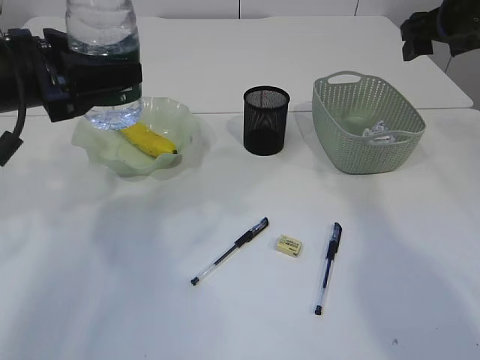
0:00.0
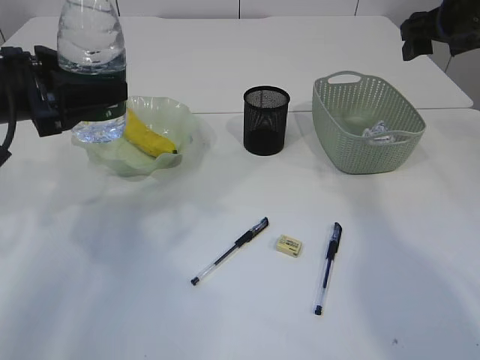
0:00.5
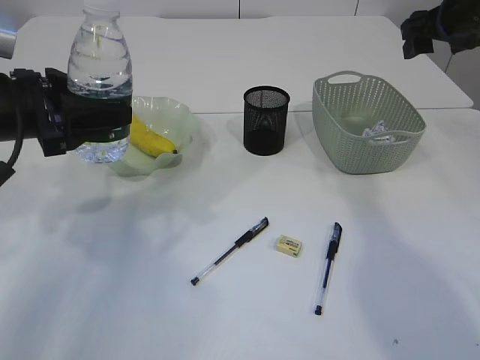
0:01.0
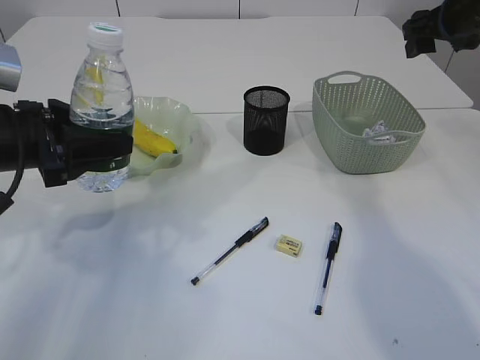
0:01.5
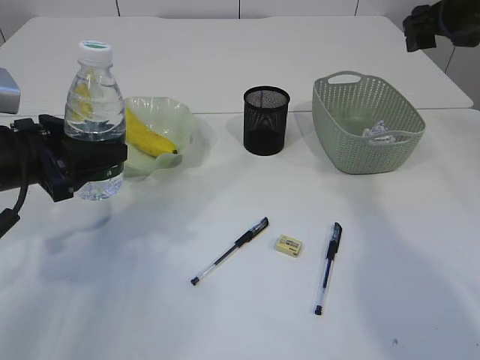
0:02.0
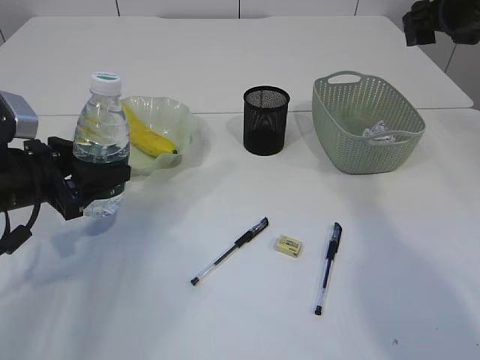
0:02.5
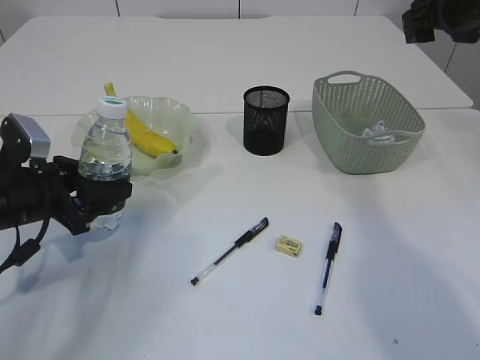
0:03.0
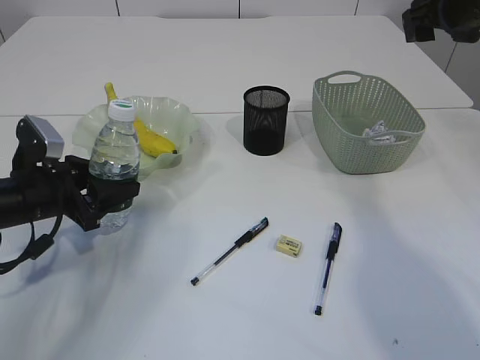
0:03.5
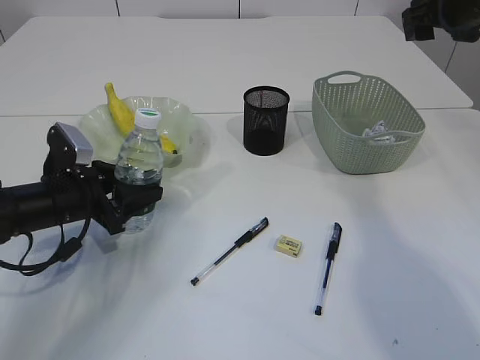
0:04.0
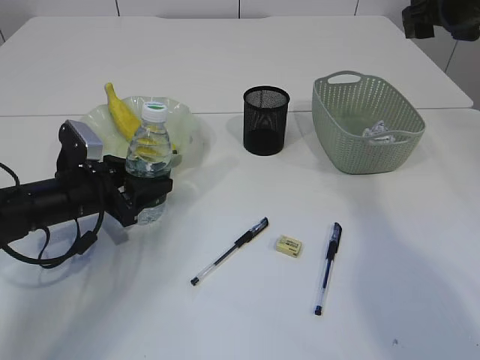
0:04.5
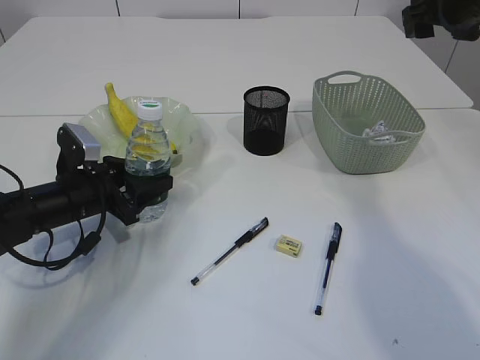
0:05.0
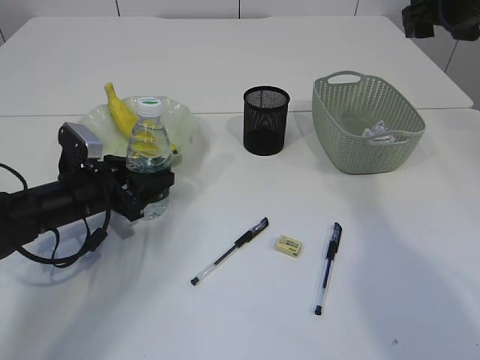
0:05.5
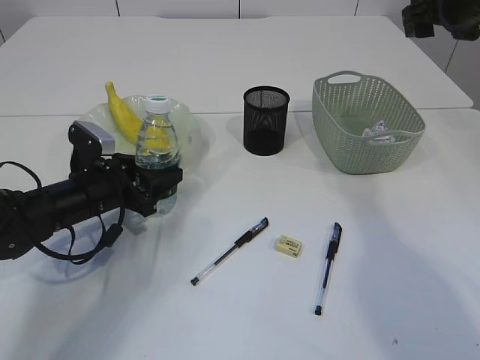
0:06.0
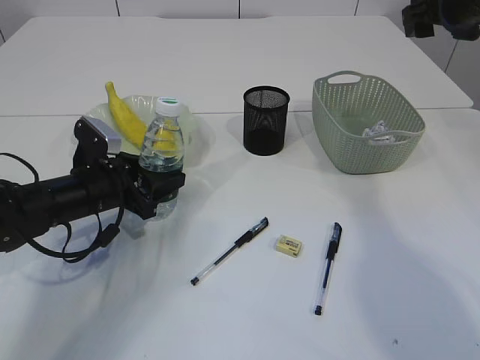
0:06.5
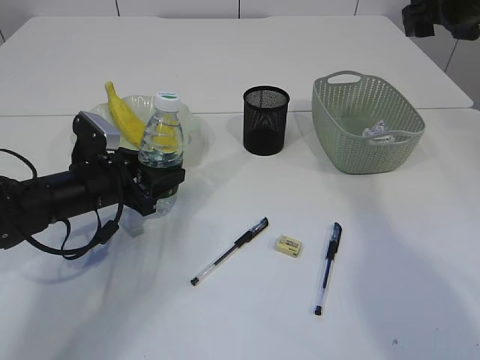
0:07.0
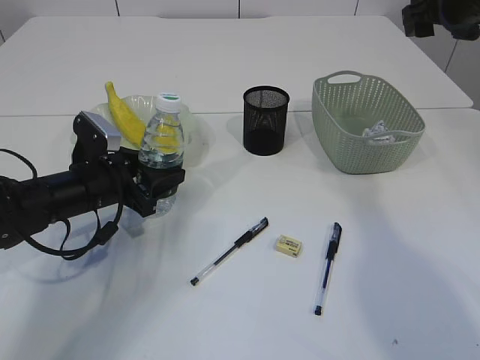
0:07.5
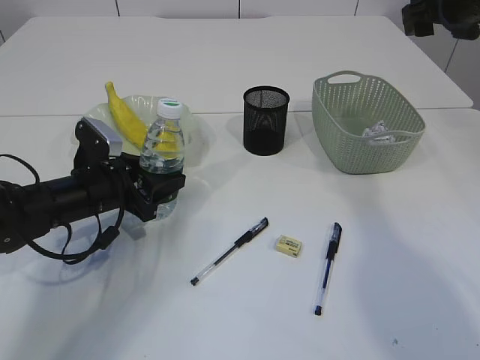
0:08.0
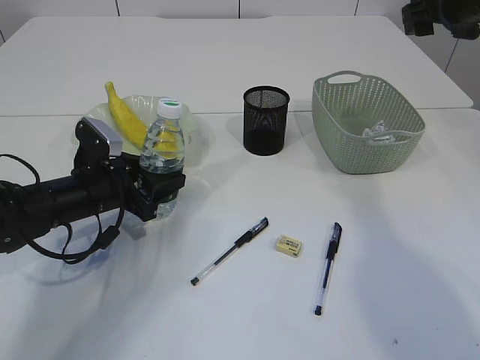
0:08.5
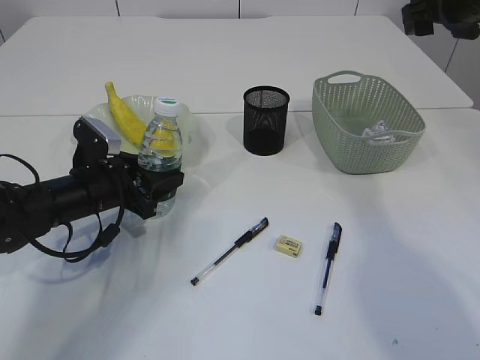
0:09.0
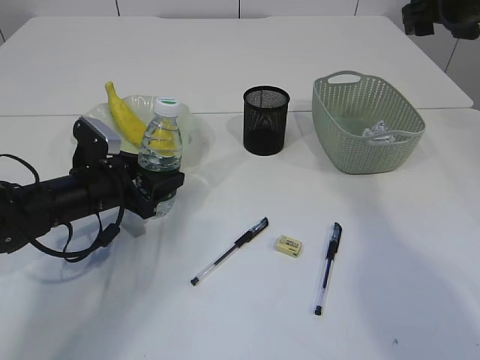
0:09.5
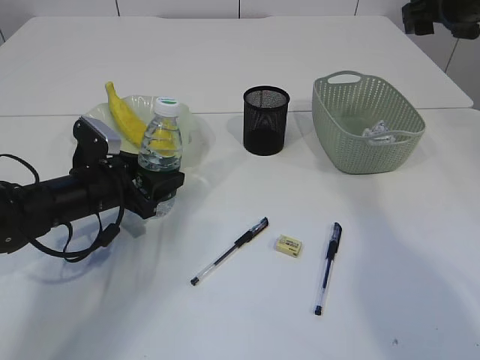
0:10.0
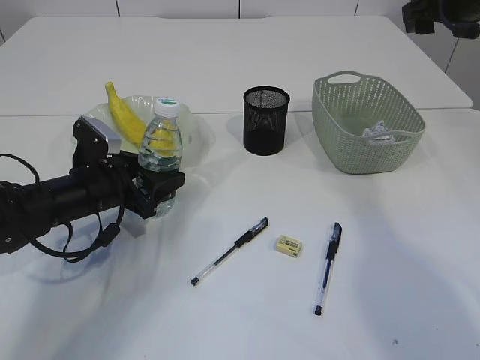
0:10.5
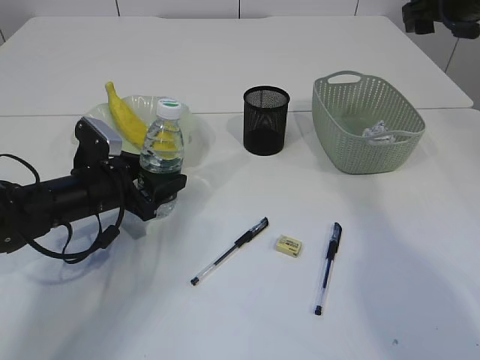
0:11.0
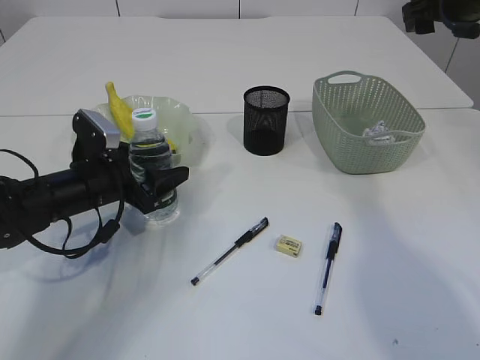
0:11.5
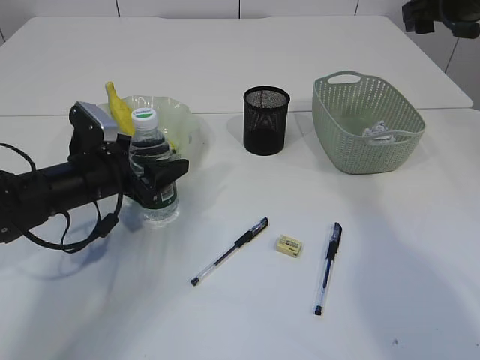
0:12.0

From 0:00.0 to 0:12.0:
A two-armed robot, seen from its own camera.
From 0:00.0 to 0:02.0: The left gripper heads downward, covering approximately 10 cm.
From 0:02.0 to 0:04.0: The left gripper travels downward by approximately 10 cm.
From 0:04.0 to 0:08.0: There are only small adjustments of the grippers.
From 0:08.0 to 0:10.0: Both grippers stay about where they are.
From 0:10.0 to 0:12.0: The grippers stay close to where they were, moving slightly.

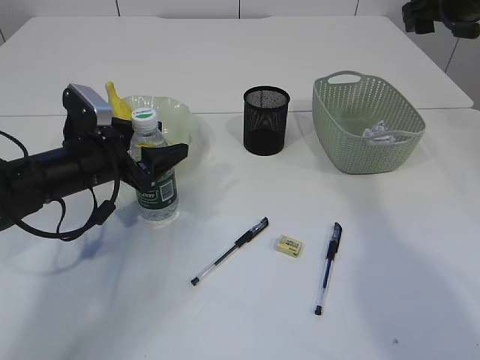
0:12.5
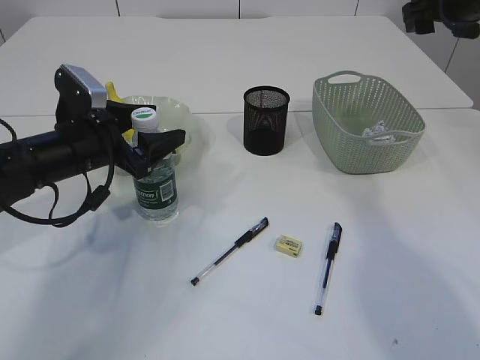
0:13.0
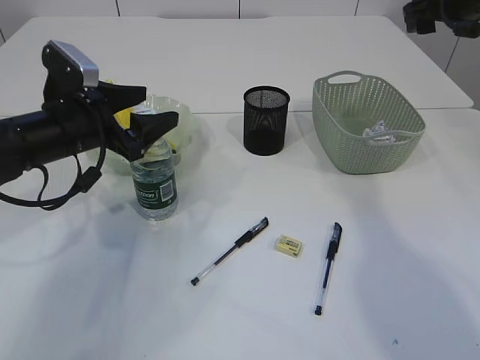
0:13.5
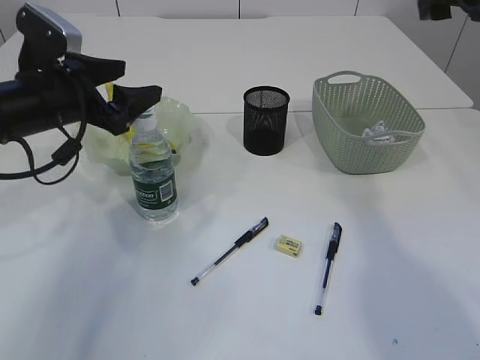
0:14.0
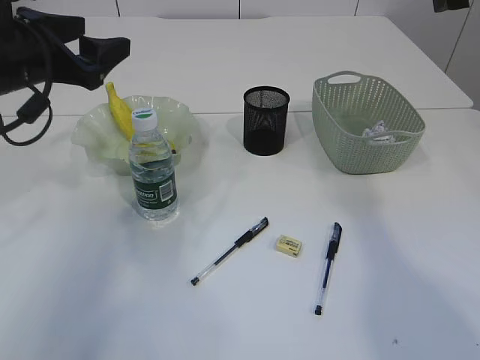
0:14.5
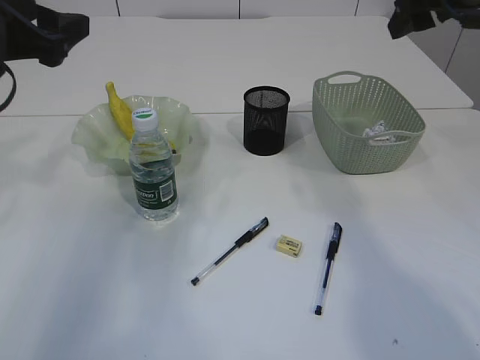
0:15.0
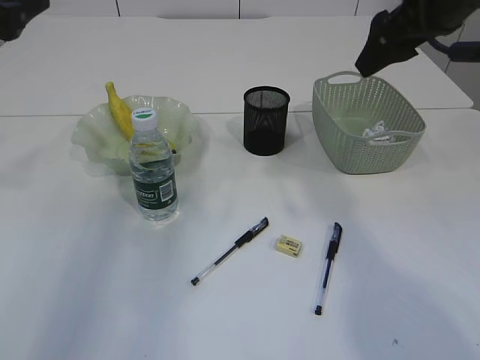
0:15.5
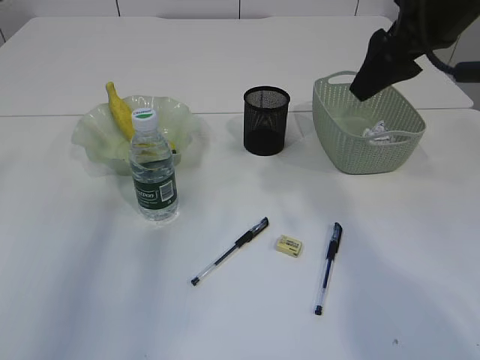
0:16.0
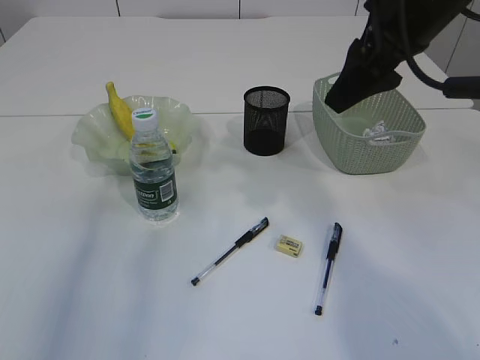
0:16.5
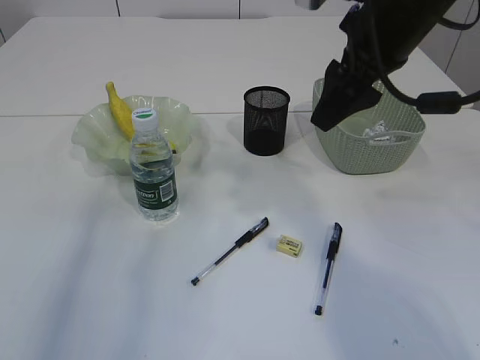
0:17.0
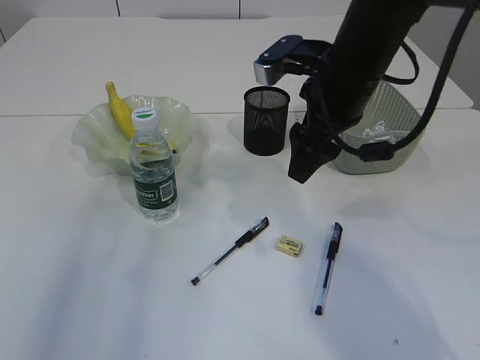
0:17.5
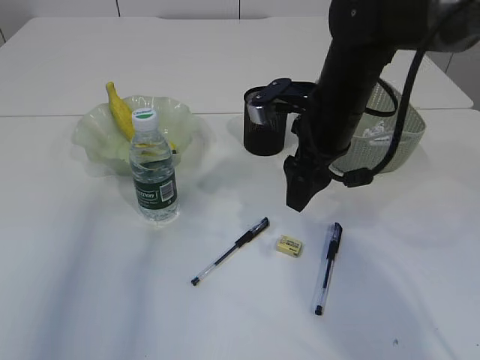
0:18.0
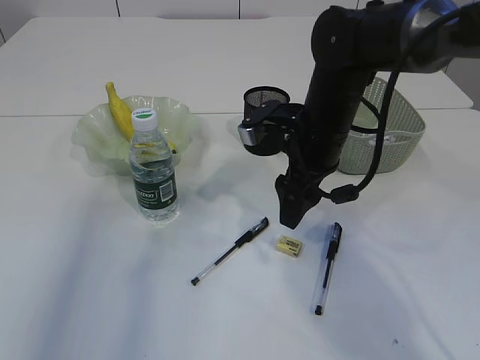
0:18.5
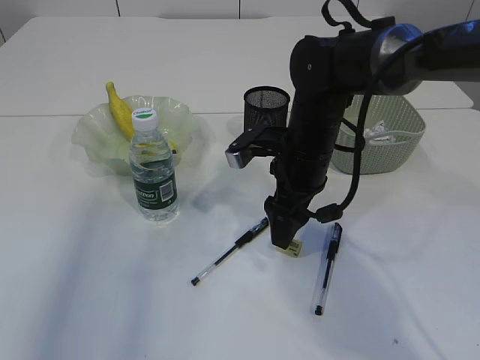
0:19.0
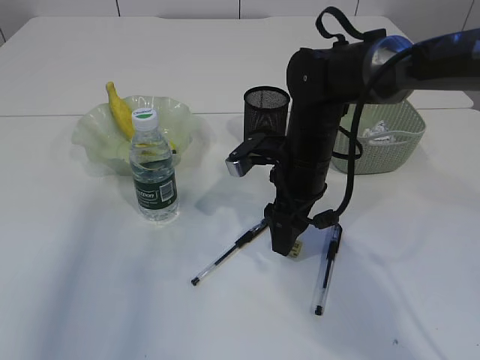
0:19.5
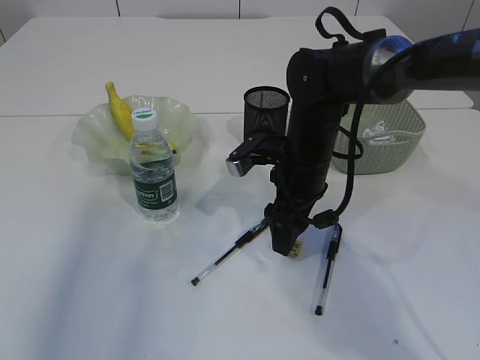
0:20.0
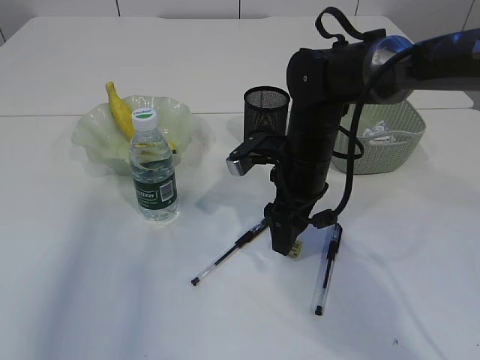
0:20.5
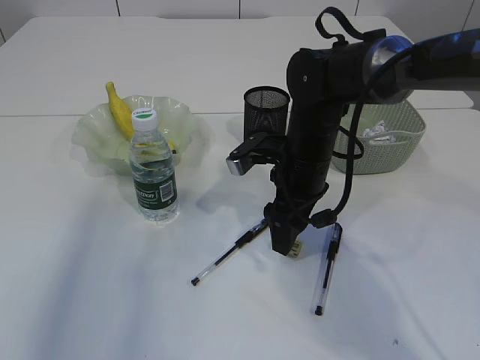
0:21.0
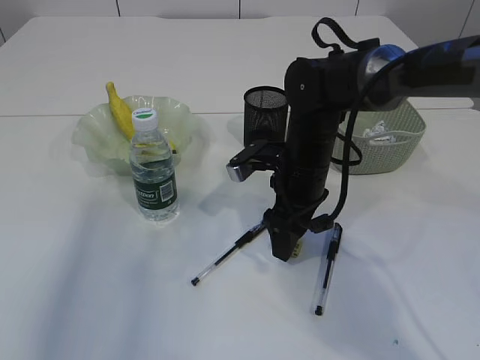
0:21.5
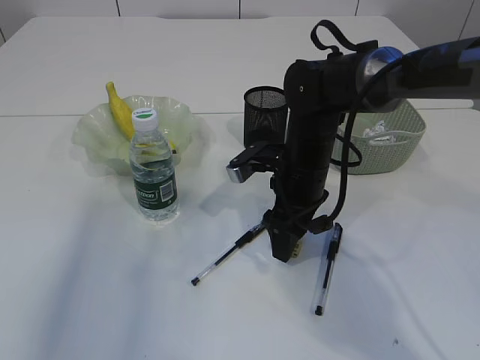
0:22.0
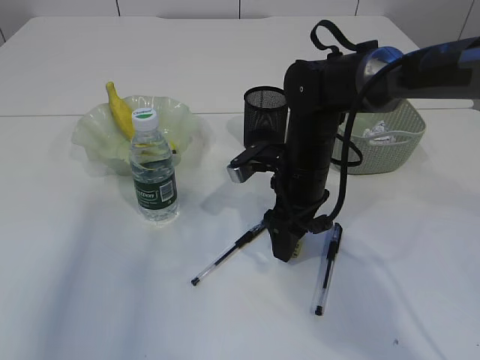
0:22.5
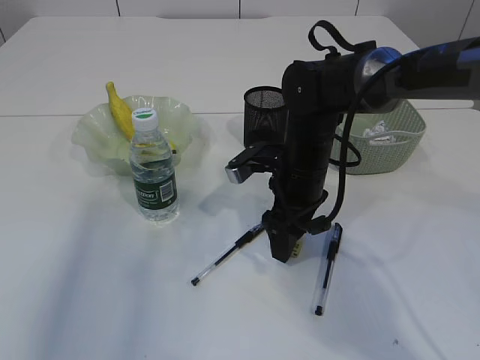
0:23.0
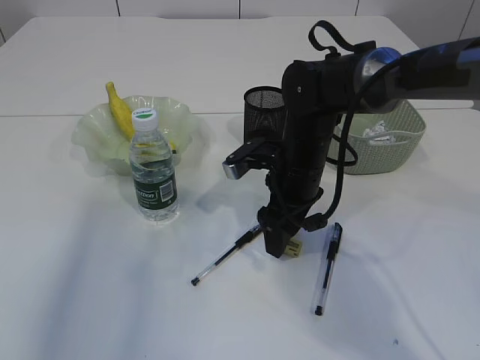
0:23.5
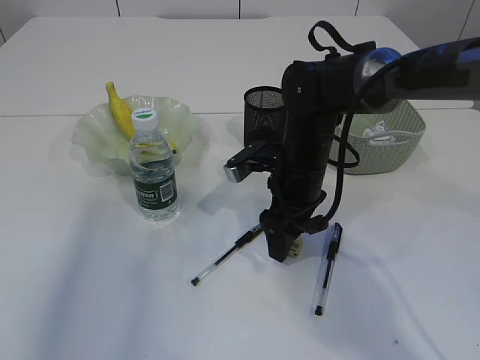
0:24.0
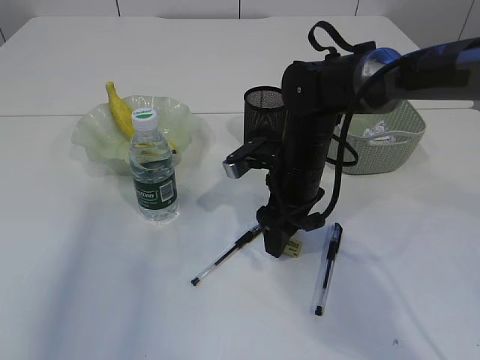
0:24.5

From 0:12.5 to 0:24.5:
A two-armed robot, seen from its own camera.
From 0:12.5 to 0:14.5: The left gripper shifts about 15 cm upward. Meanwhile the right gripper changes place by about 5 cm.
From 0:14.5 to 0:16.5: The right gripper shifts some 15 cm to the left and backward. Meanwhile the left gripper goes about 15 cm backward, upward and to the left.
From 0:16.5 to 0:18.5: The right gripper moves downward and to the left, approximately 15 cm.
From 0:18.5 to 0:20.5: The grippers stay close to where they were, moving slightly.
From 0:20.5 to 0:22.5: Neither gripper changes place.
From 0:22.5 to 0:24.5: Both grippers stay about where they are.

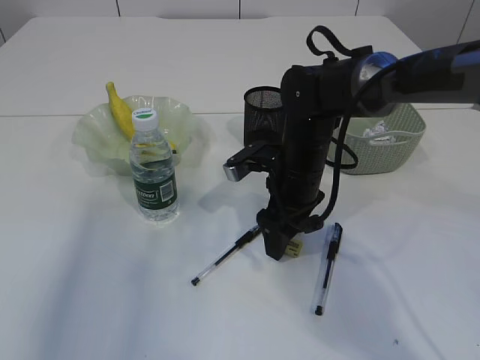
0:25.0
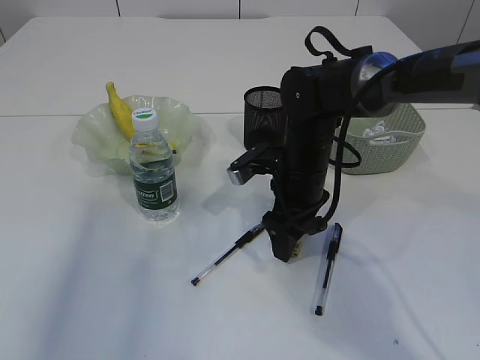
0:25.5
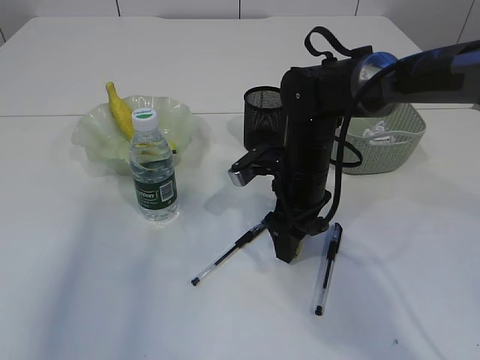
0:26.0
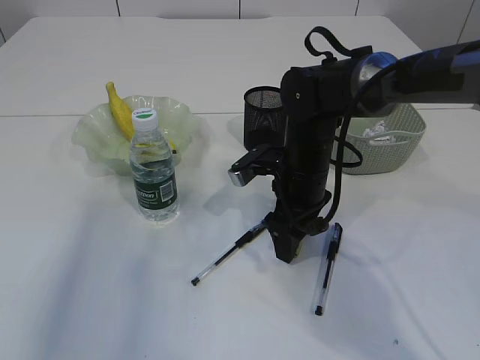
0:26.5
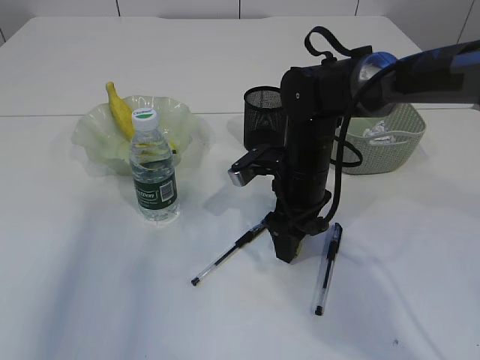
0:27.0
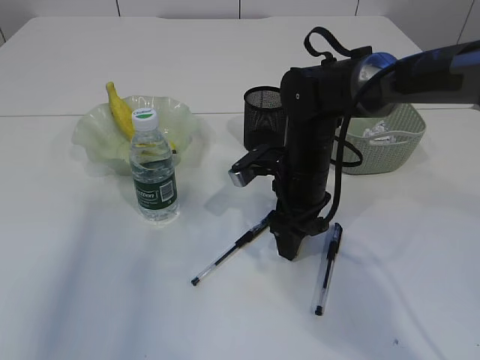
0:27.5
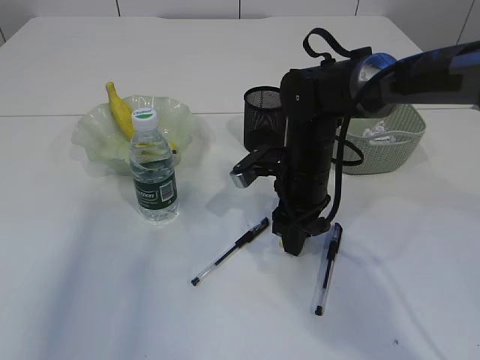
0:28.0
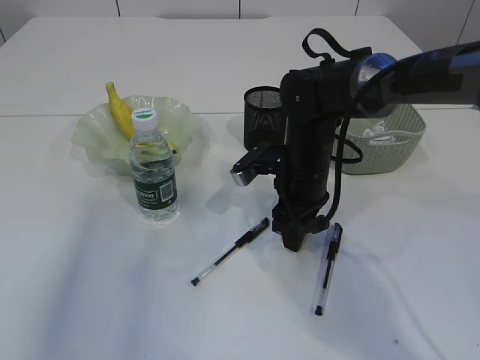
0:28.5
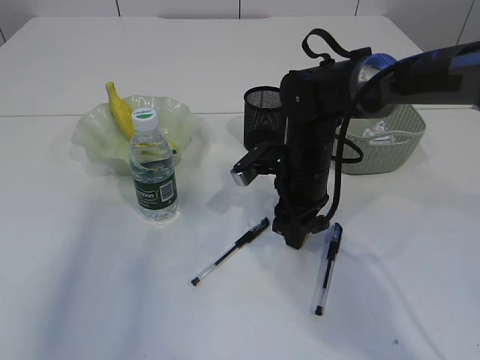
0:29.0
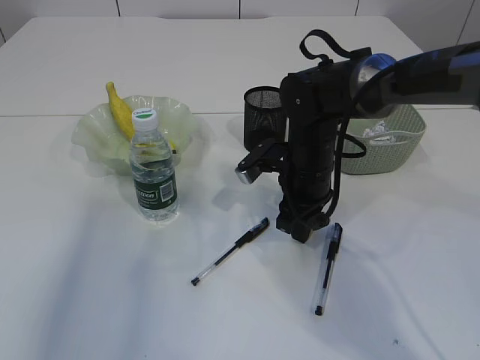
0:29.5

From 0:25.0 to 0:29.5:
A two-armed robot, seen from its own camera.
From 0:25.0 to 0:27.0: Both grippers stay put.
From 0:27.0 to 0:29.5: The right gripper closes up.
